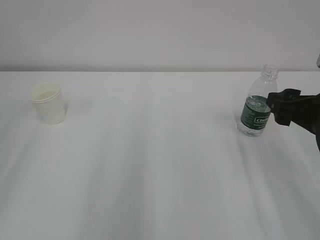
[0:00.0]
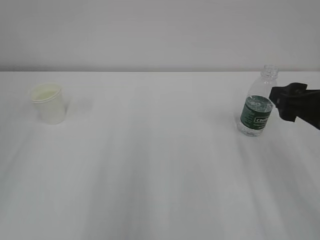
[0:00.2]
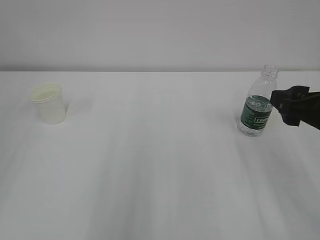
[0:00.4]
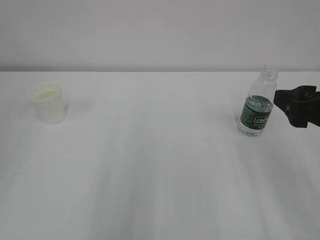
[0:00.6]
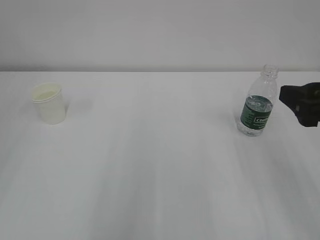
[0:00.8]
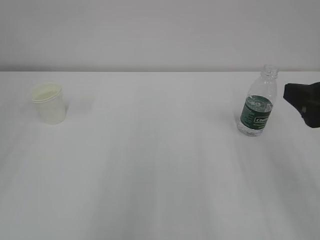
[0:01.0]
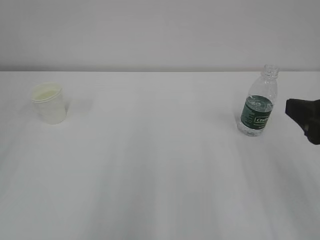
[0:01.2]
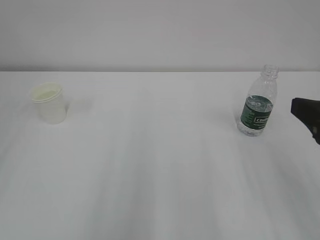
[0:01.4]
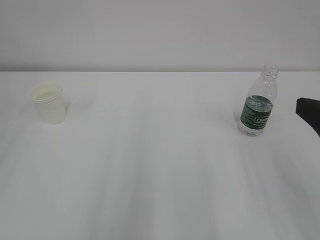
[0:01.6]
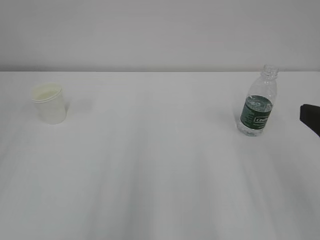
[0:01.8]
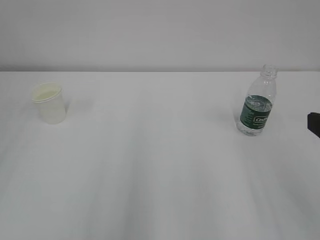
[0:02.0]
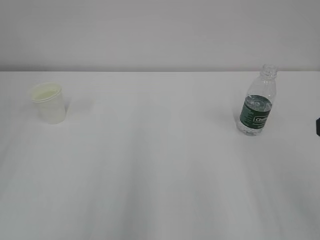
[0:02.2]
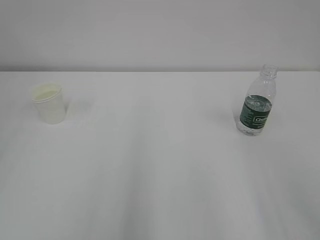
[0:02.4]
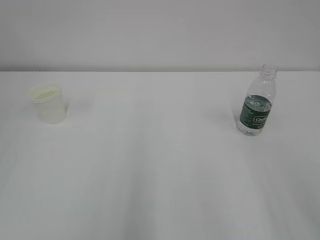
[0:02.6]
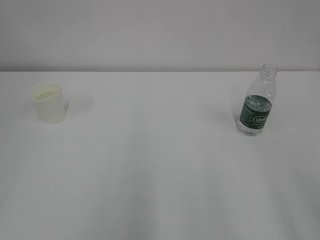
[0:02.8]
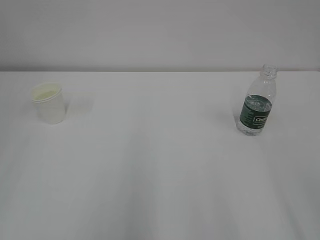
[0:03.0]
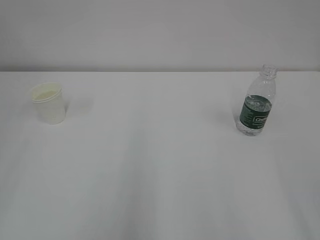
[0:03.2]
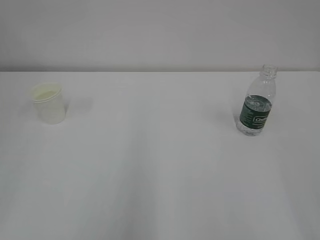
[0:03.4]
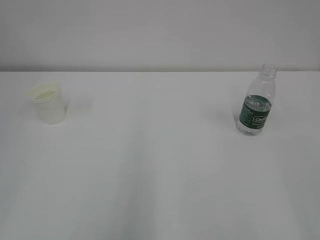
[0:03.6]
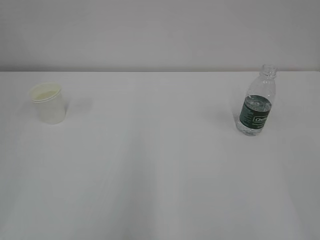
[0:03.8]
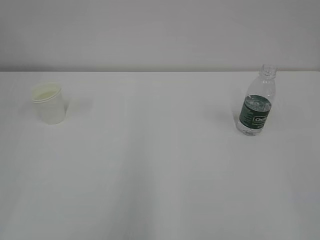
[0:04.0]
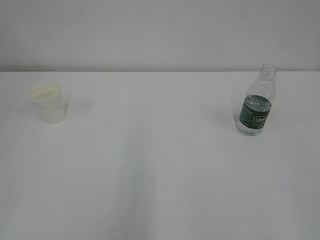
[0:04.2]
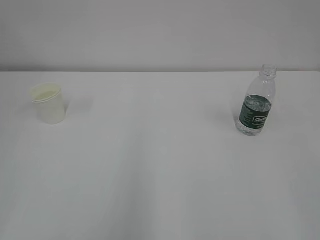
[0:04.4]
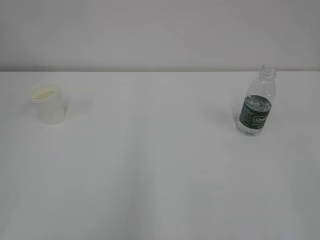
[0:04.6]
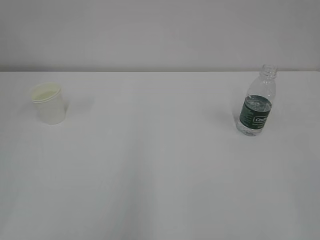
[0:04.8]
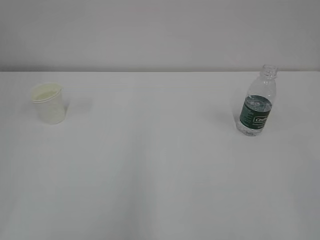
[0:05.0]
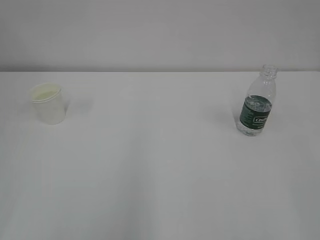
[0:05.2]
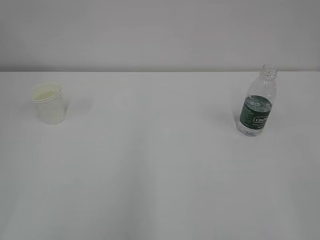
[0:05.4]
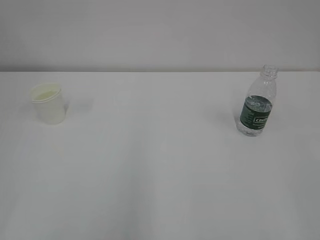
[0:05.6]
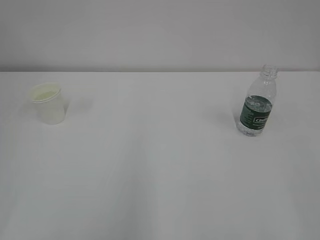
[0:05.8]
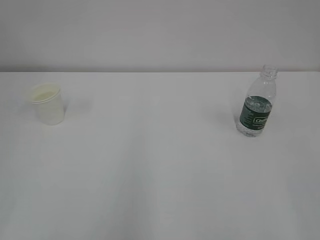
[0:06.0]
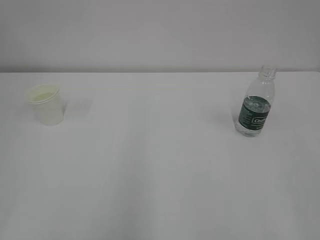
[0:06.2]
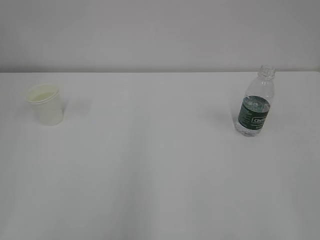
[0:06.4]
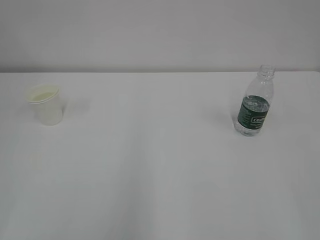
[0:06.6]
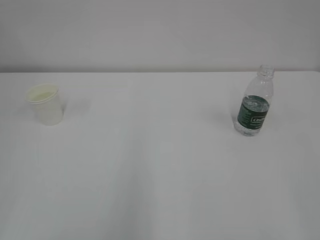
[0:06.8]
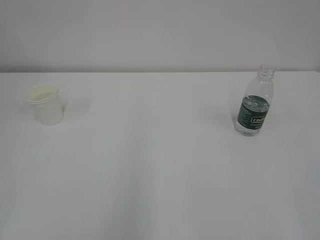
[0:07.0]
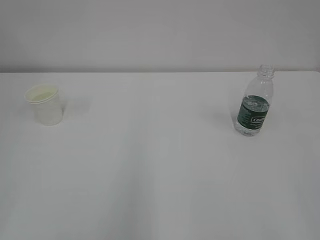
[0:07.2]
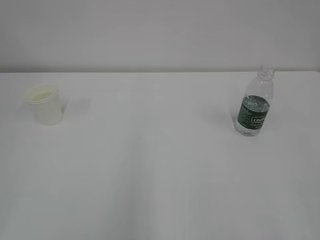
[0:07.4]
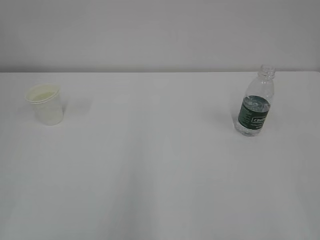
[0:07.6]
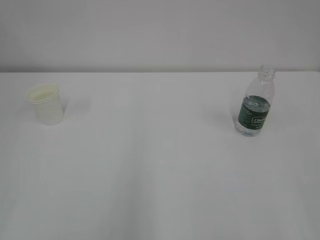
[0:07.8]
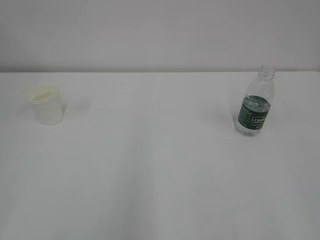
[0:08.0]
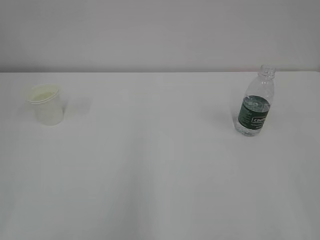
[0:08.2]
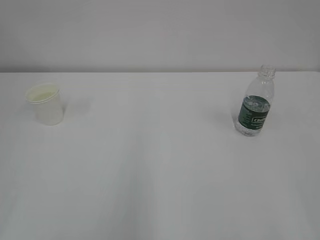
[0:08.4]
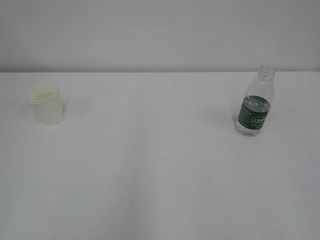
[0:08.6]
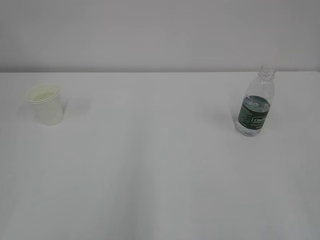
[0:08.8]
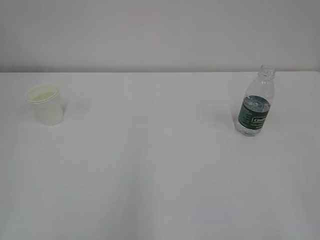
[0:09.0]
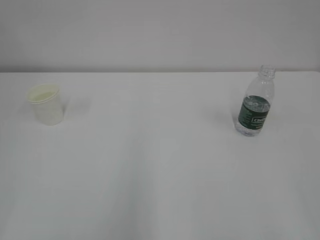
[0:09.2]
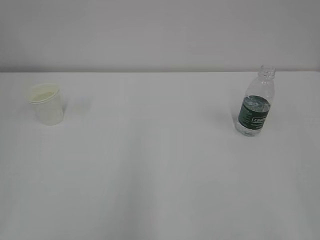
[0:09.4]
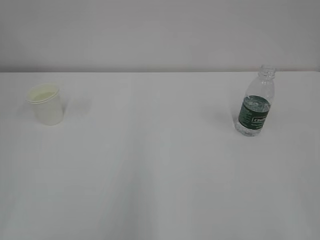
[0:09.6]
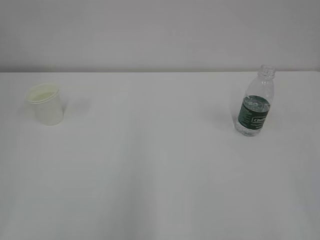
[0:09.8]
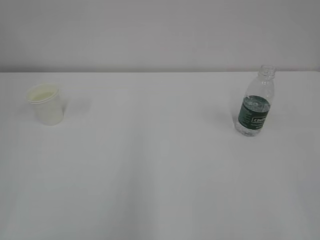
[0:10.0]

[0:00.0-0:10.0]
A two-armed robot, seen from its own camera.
0:00.0 to 0:01.4: The right gripper is displaced backward by some 5 cm.
0:01.4 to 0:02.8: The right gripper goes about 10 cm backward, and closes up.
0:07.2 to 0:10.0: Both grippers stay about where they are.

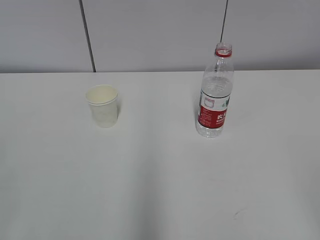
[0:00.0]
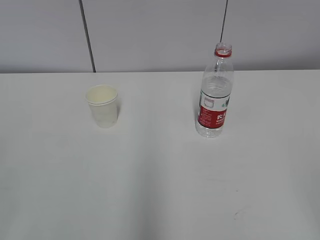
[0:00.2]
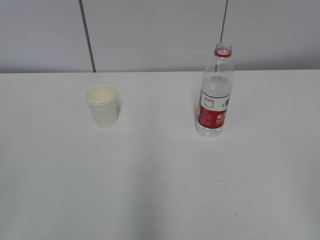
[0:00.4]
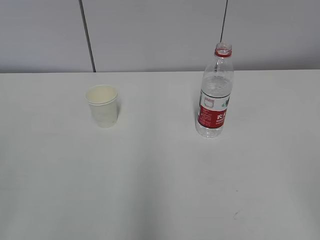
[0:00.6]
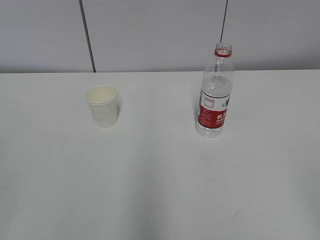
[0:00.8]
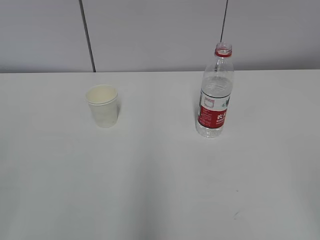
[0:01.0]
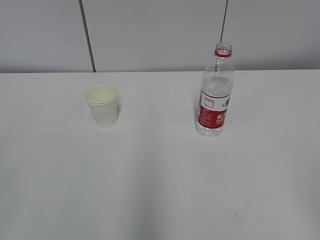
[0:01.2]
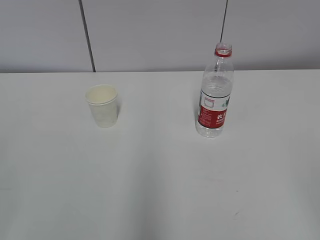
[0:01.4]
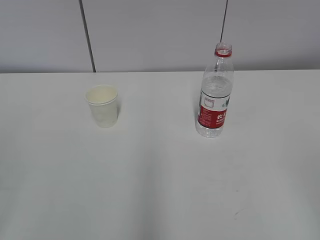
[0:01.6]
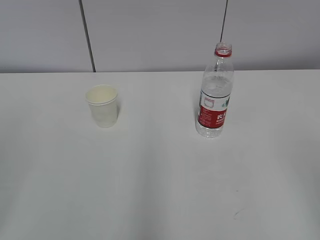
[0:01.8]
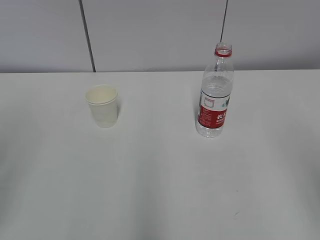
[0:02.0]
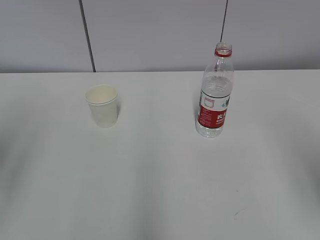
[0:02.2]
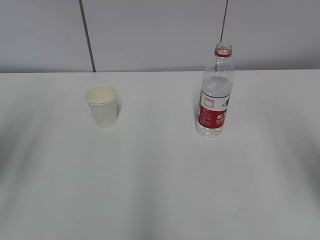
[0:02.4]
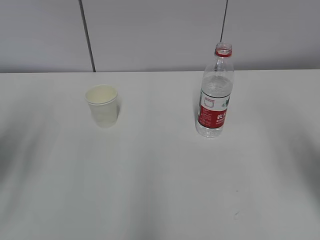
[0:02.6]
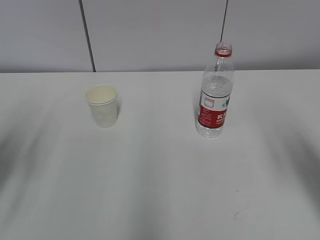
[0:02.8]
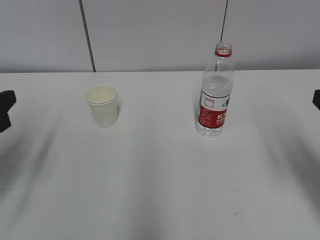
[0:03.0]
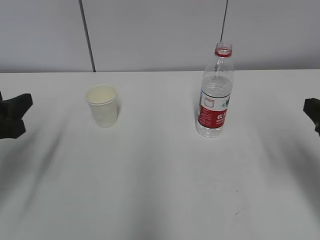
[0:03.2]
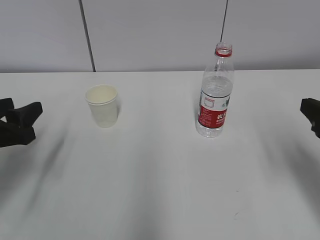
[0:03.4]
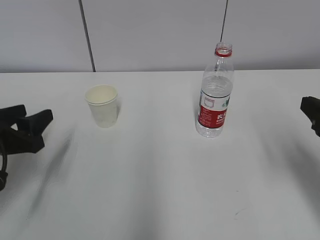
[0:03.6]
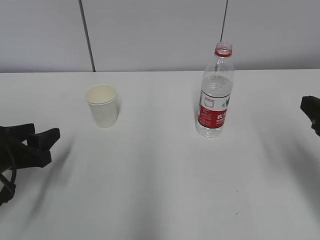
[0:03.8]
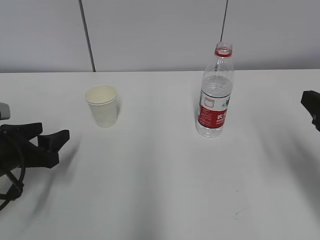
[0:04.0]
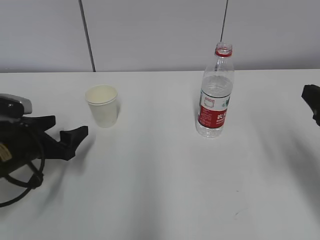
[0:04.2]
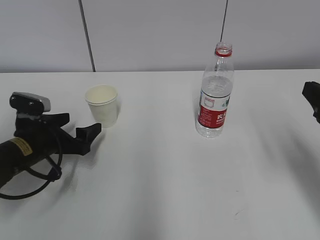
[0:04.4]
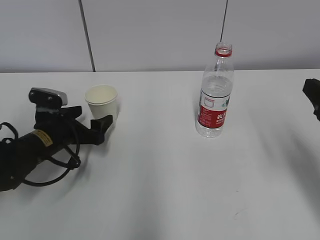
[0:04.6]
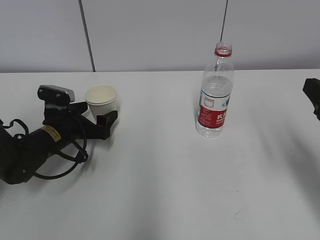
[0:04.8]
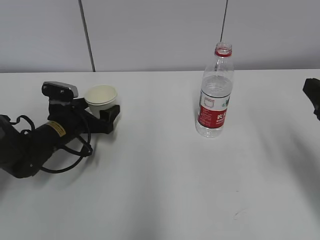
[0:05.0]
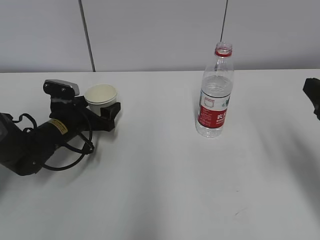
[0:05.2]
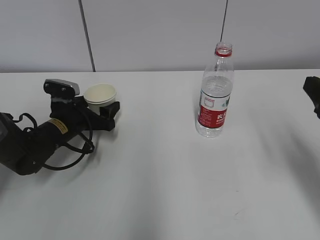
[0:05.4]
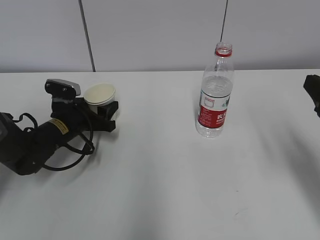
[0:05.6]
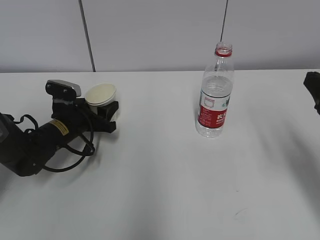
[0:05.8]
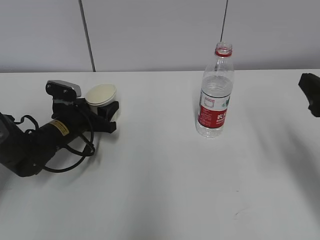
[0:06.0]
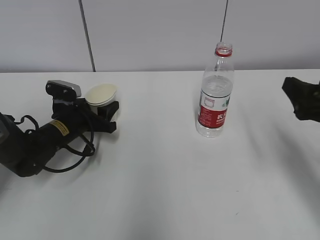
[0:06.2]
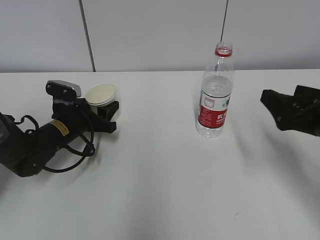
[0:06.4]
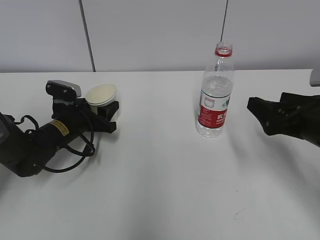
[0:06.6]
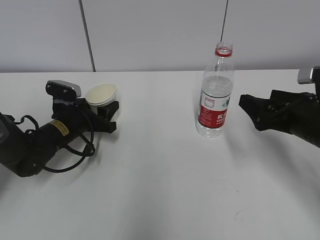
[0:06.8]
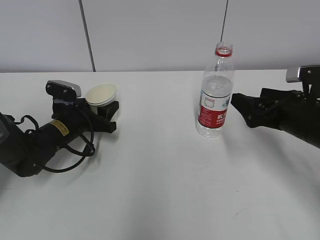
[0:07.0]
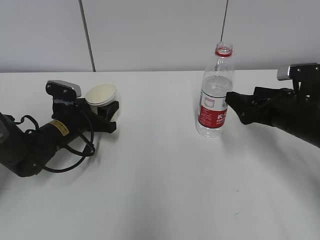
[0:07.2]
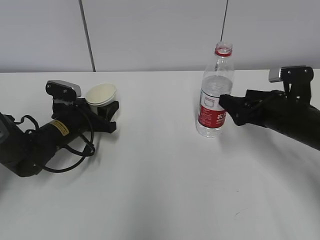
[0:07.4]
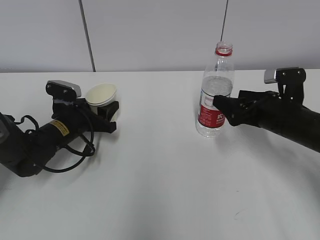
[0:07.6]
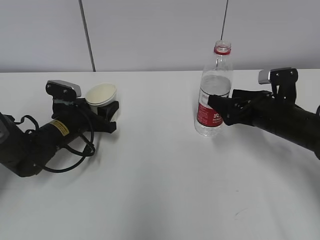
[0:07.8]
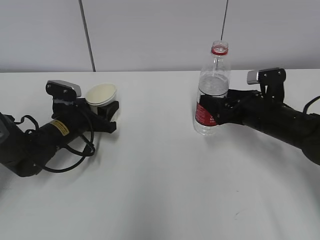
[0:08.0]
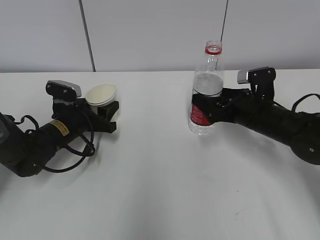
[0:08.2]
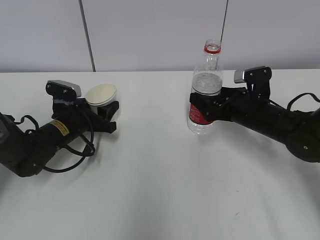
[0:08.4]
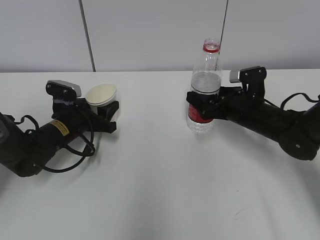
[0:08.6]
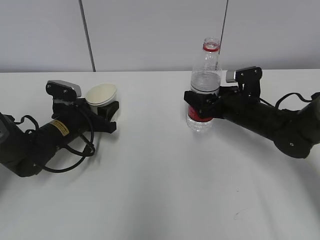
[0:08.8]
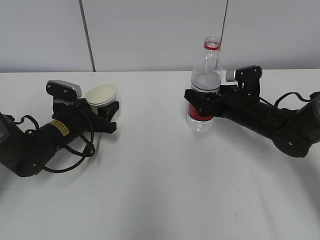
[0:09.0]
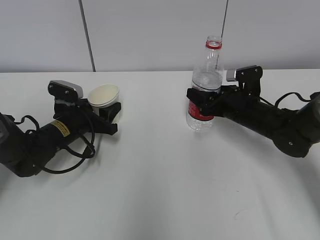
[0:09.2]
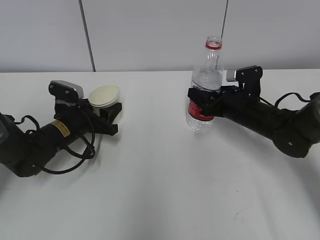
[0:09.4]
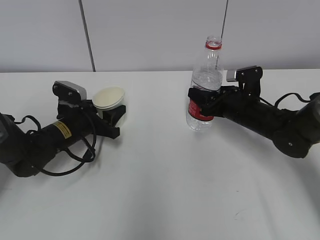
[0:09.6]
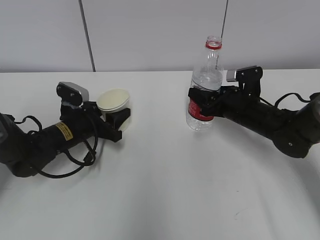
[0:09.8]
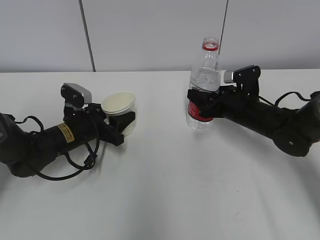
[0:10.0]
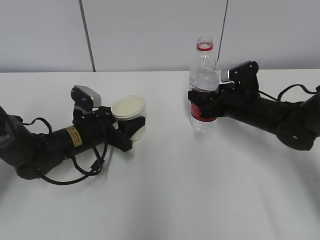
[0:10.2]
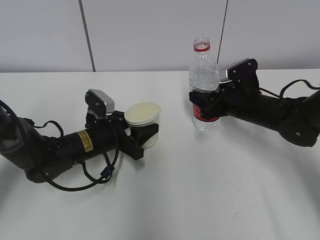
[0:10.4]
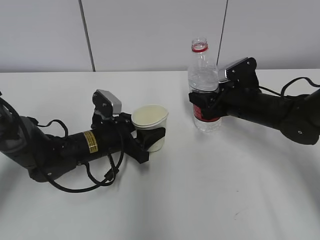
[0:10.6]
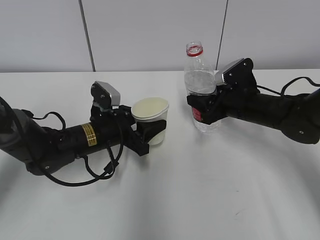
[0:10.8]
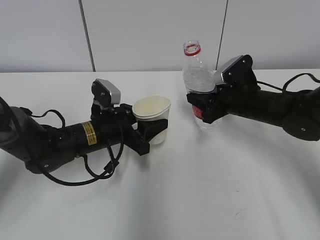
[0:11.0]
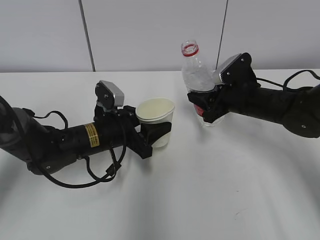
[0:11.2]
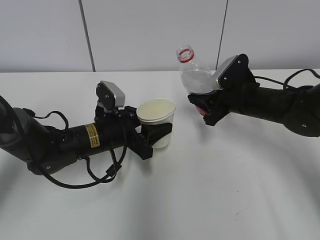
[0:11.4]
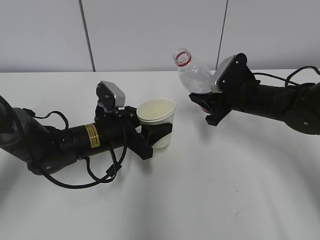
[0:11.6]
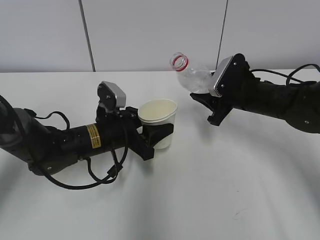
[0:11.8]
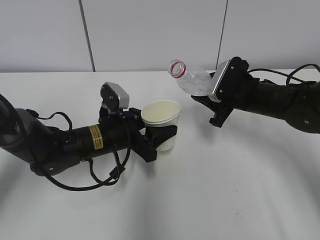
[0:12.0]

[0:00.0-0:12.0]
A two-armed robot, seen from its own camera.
Step, 0:00.0 to 0:08.2: Grab the paper cup with the left hand.
0:01.6 to 0:03.0: The right gripper goes about 20 cm forward. The left gripper shifts some 25 cm forward and downward.
0:03.0 to 0:04.4: The left gripper shifts approximately 15 cm downward, forward and to the right, and opens its fingers.
0:04.4 to 0:06.0: The left gripper goes about 10 cm forward, and closes its fingers.
0:06.0 to 0:07.6: The right gripper goes roughly 15 cm forward and downward.
0:07.6 to 0:09.0: The right gripper goes about 5 cm forward.
0:09.0 to 0:10.4: The right gripper closes. Meanwhile the left gripper goes roughly 5 cm to the right.
